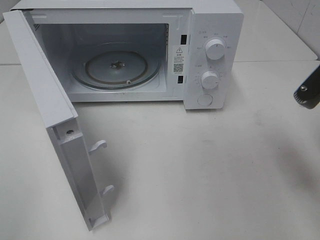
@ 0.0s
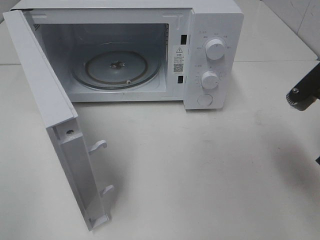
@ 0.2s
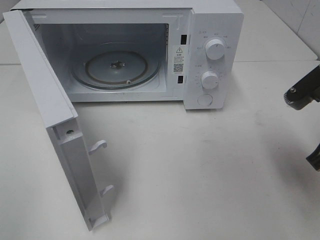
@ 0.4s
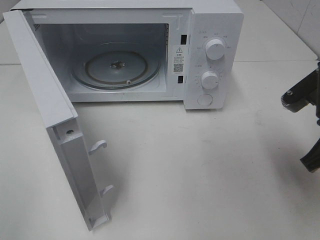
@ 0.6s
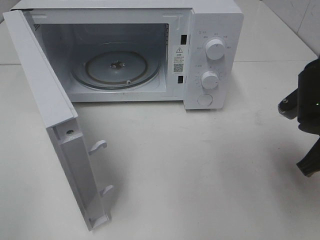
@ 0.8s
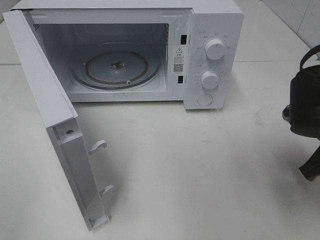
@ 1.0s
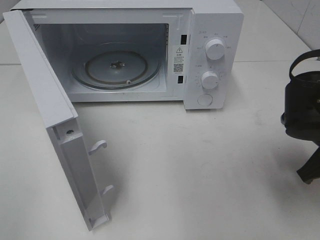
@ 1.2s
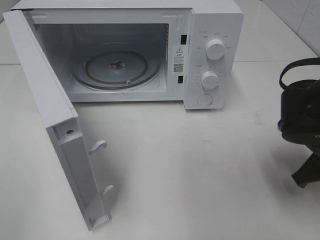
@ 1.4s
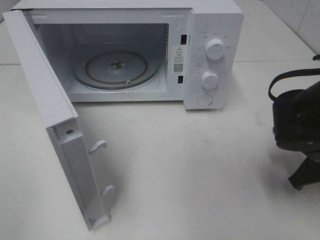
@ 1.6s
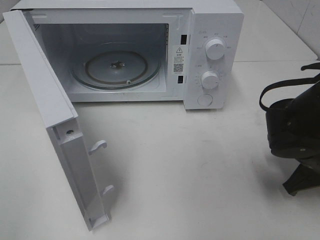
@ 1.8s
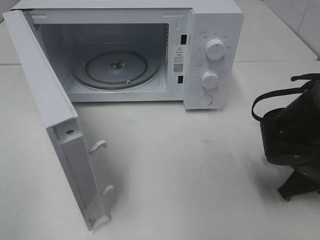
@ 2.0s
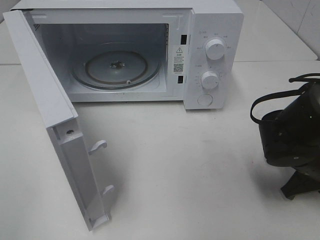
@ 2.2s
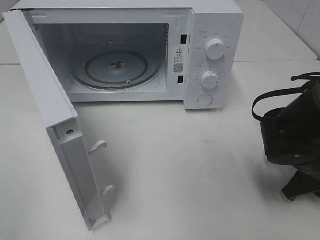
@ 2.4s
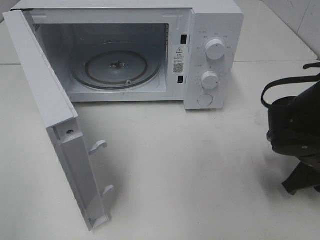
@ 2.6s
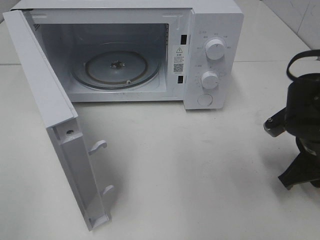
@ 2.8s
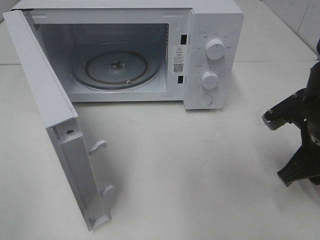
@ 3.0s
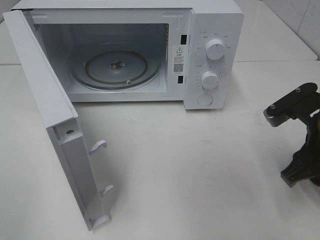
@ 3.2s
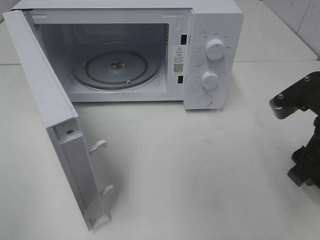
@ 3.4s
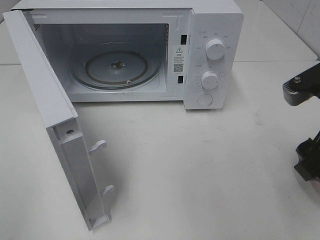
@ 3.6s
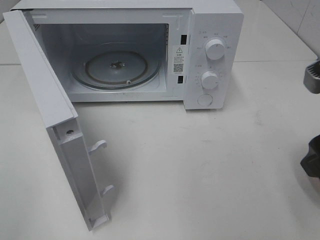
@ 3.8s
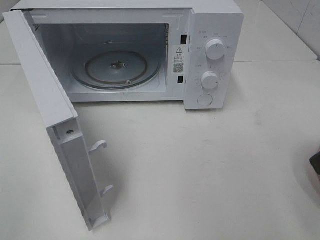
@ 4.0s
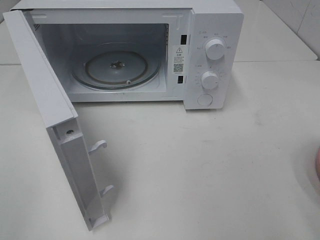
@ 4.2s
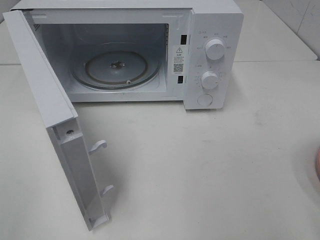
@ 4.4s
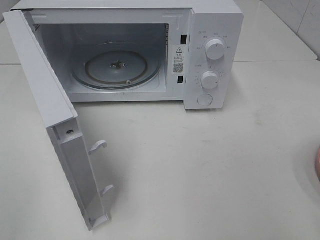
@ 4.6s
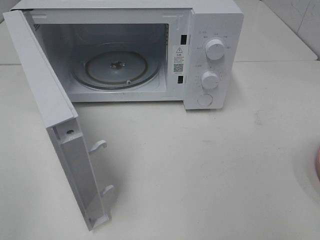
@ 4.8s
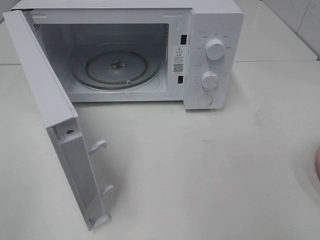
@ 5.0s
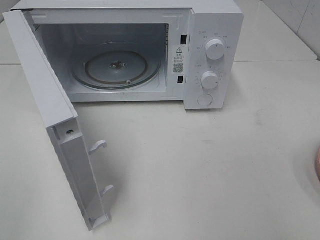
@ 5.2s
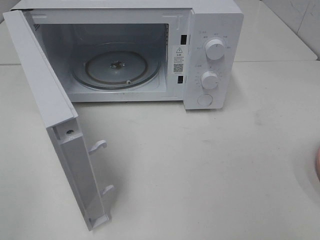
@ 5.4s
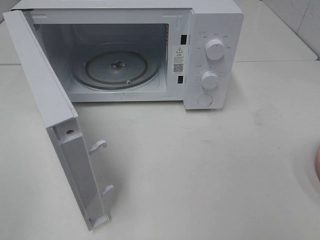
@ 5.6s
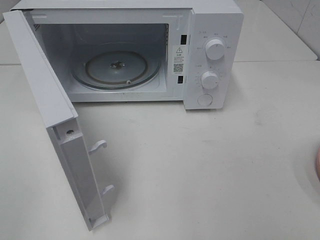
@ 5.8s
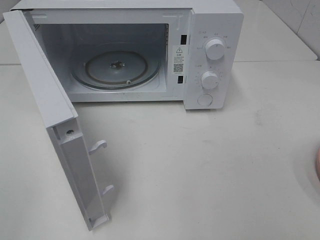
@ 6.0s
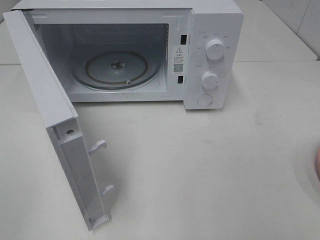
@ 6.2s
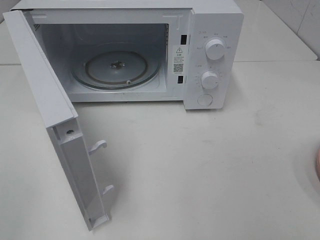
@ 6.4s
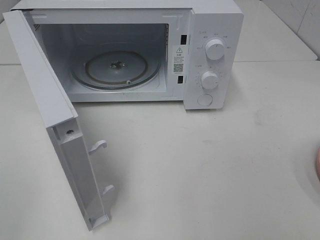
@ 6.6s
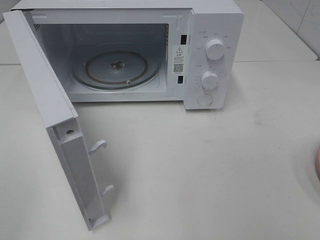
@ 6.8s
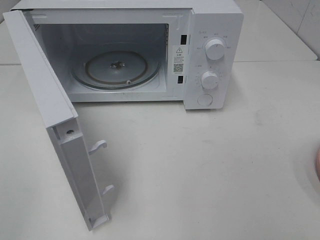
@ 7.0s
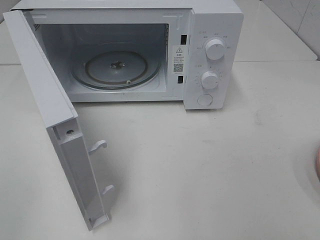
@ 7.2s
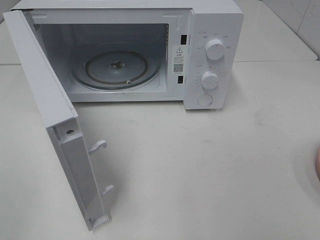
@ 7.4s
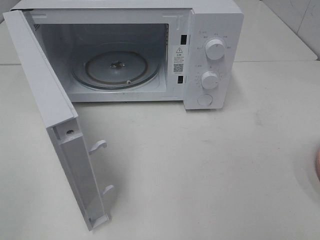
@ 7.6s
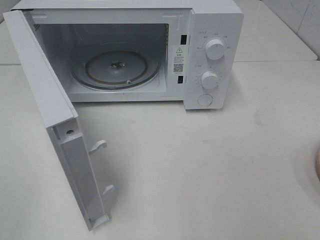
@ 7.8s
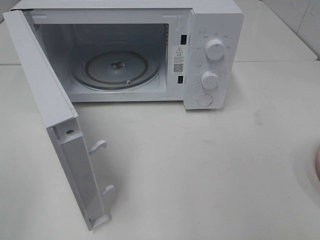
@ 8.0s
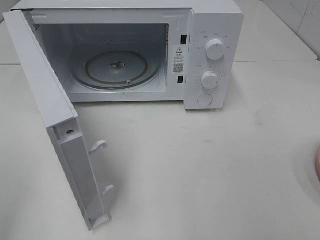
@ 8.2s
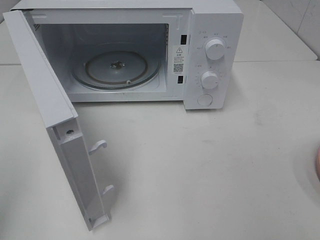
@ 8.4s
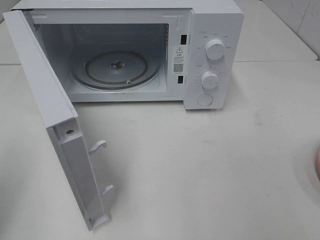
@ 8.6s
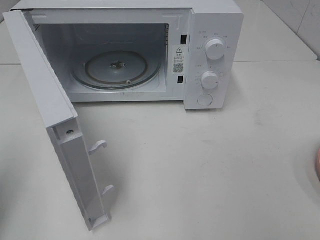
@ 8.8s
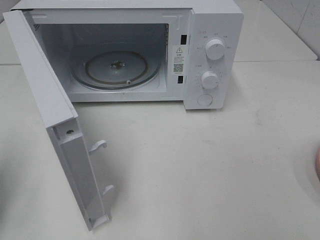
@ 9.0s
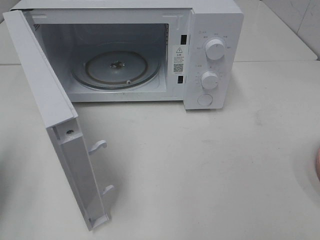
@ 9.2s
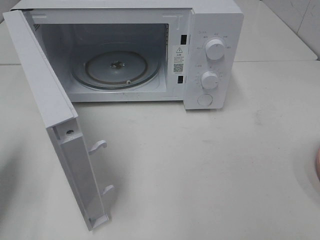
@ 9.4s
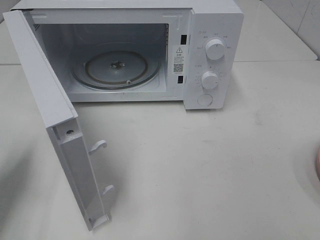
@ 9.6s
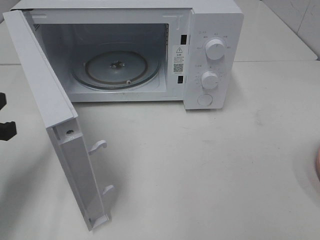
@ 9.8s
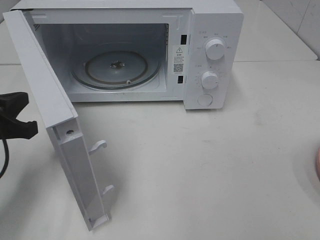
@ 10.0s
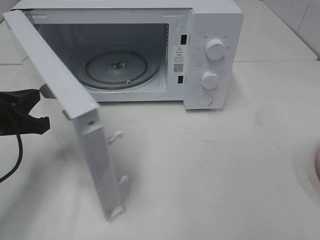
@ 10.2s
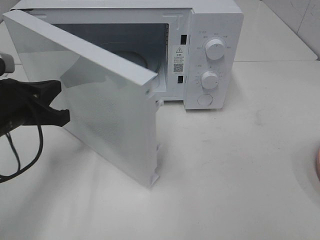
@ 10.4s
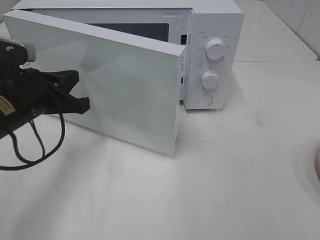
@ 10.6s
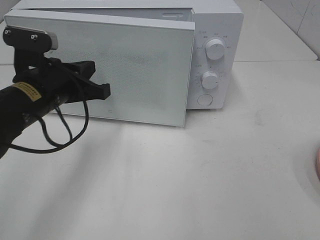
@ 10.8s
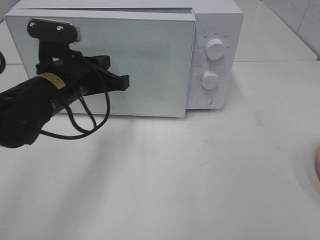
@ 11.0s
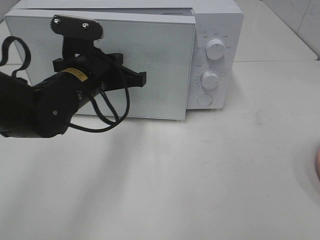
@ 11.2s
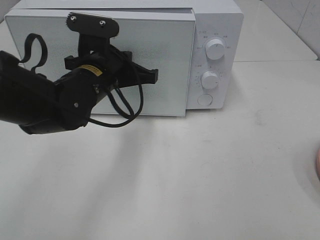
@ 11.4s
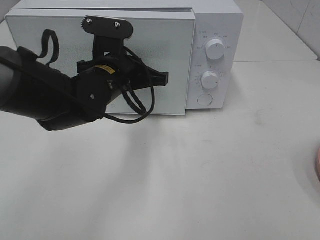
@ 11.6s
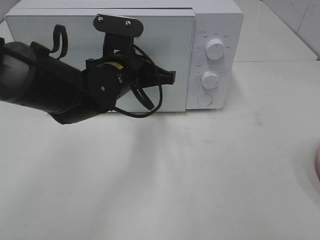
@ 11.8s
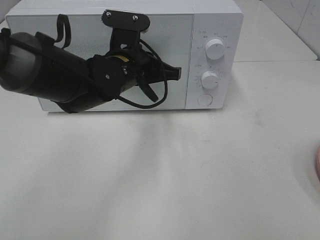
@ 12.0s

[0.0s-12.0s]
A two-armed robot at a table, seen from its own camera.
Task of the whole recording: Heat the burger.
Step, 0.0s to 3.0s: Right hand: place the plate on the table.
0.0s to 1.6s: The right gripper shifts approximately 10 cm downward.
1.6s to 3.0s: The right gripper ends up approximately 5 cm from where it was, and opens up.
3.0s to 4.4s: The right gripper goes about 20 cm upward and backward.
6.0s to 7.6s: Both grippers stay about where they are.
7.6s to 9.0s: The left gripper travels forward by some 15 cm, and closes its fingers.
9.0s to 10.4s: The left gripper travels to the right, forward and downward by roughly 15 cm.
10.4s to 12.0s: The left gripper goes roughly 20 cm to the right and forward.

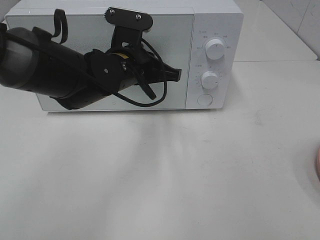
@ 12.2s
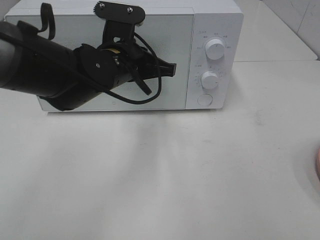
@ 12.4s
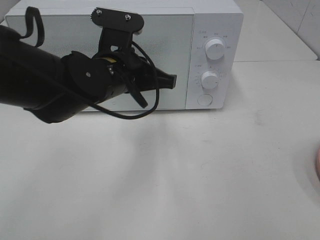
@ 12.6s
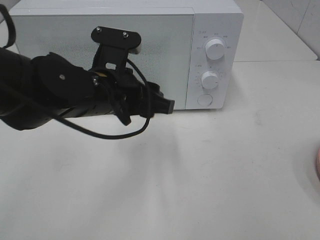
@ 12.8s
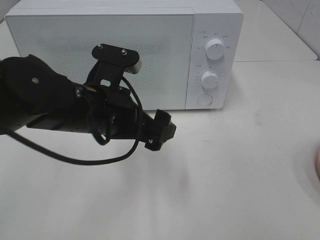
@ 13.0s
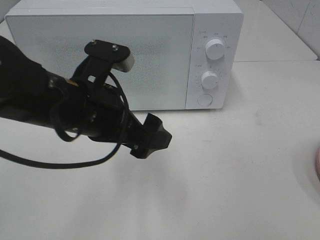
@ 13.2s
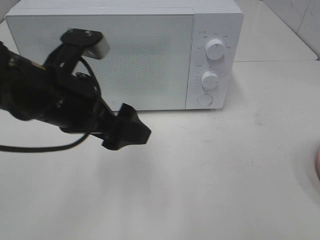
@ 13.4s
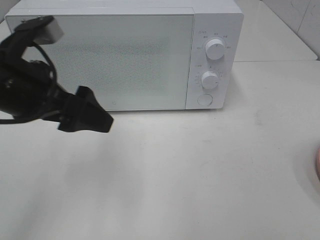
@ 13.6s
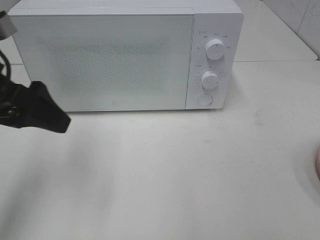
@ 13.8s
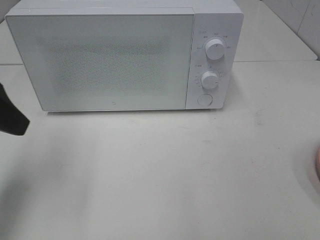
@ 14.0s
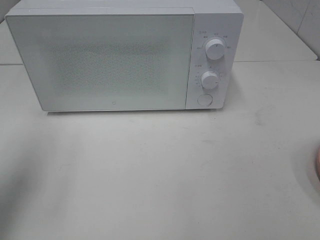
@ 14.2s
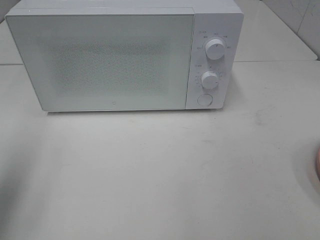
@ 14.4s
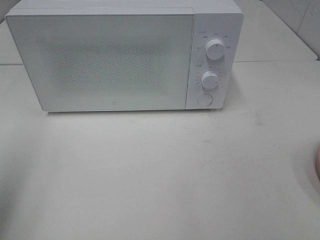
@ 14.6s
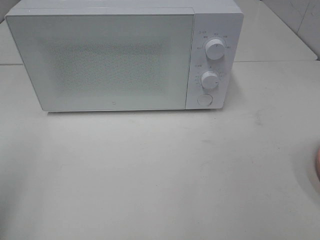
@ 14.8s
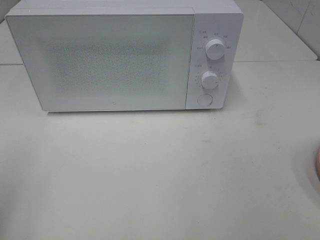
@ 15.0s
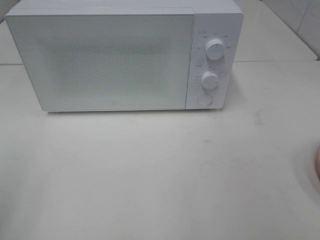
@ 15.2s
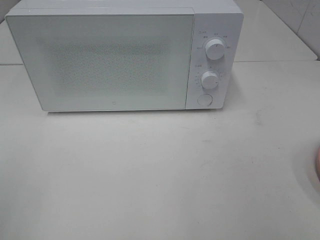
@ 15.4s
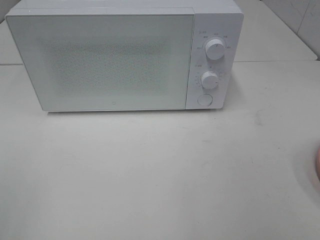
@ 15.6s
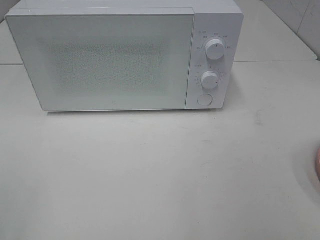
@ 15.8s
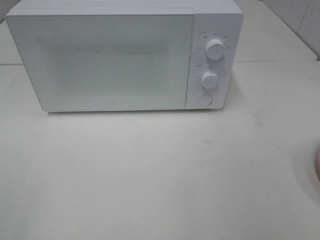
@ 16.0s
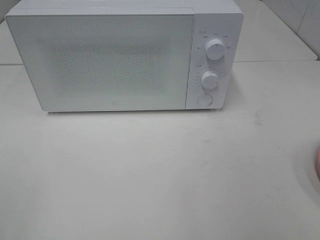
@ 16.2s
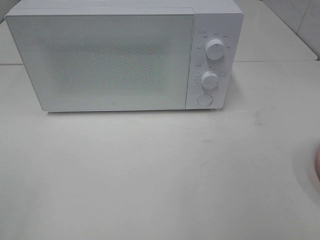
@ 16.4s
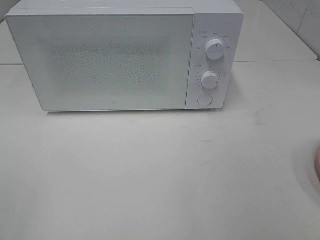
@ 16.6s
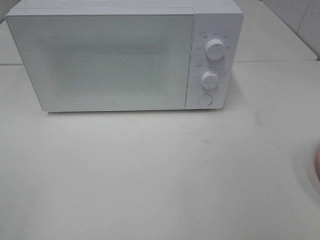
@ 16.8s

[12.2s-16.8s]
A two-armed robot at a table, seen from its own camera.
Task of the whole recording: Heat the burger.
12.2s to 13.8s: The left gripper moves to the left, backward and upward, roughly 25 cm, and opens up.
13.8s to 15.2s: The left gripper is displaced backward and to the left by some 20 cm.

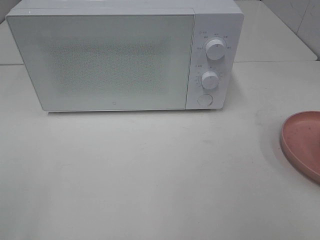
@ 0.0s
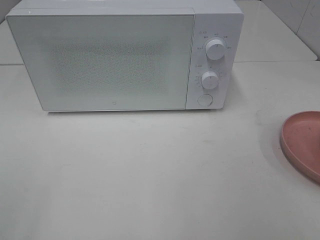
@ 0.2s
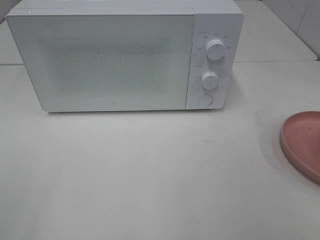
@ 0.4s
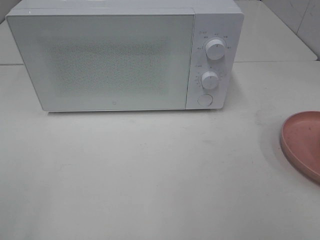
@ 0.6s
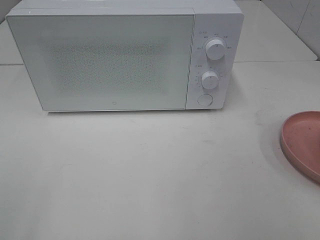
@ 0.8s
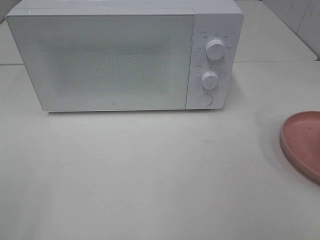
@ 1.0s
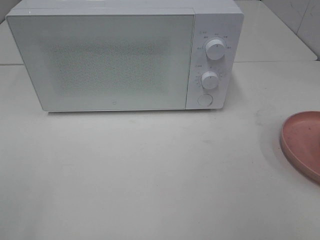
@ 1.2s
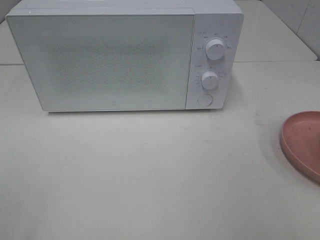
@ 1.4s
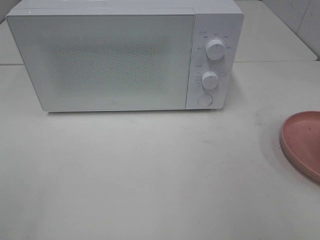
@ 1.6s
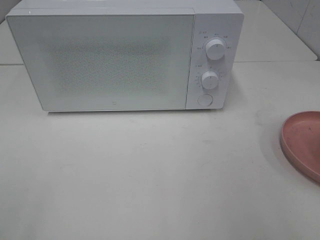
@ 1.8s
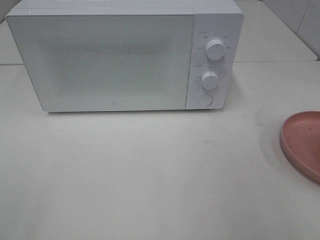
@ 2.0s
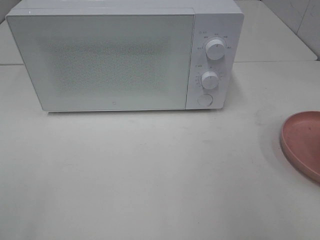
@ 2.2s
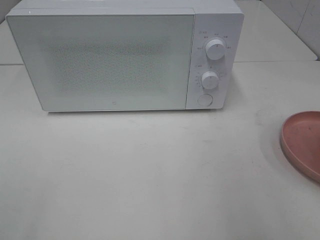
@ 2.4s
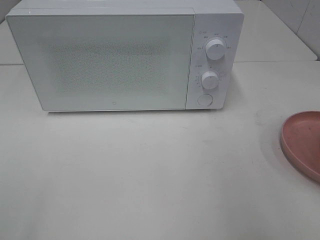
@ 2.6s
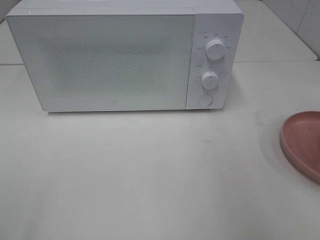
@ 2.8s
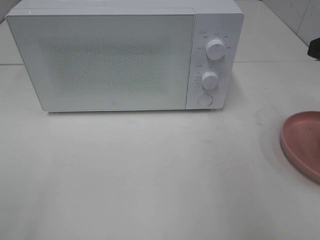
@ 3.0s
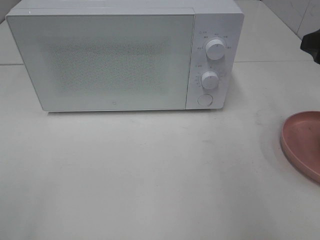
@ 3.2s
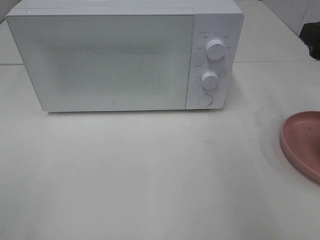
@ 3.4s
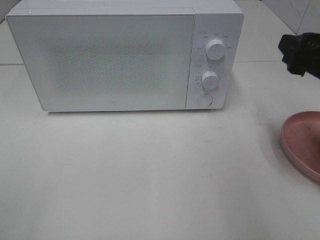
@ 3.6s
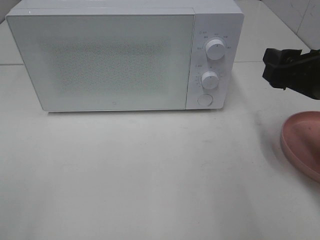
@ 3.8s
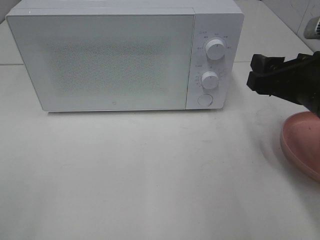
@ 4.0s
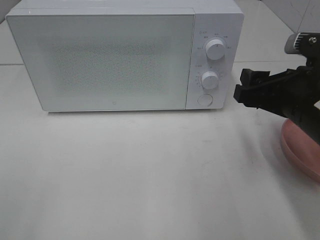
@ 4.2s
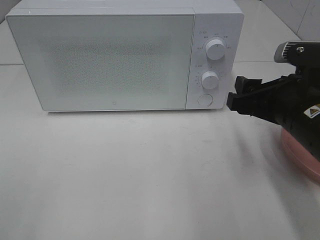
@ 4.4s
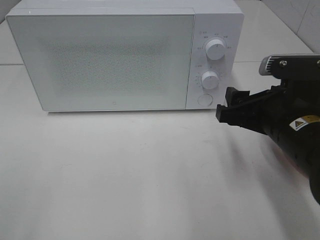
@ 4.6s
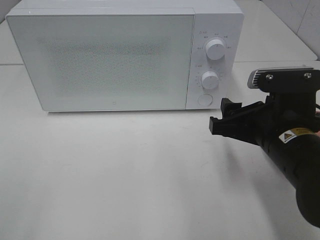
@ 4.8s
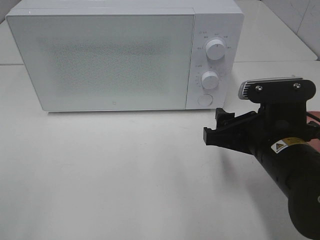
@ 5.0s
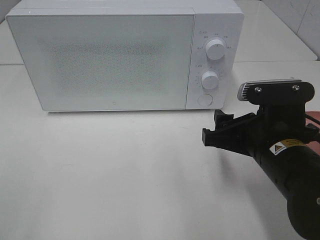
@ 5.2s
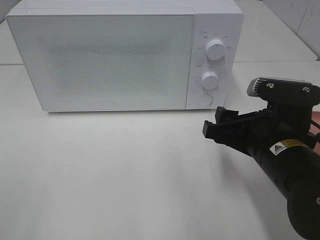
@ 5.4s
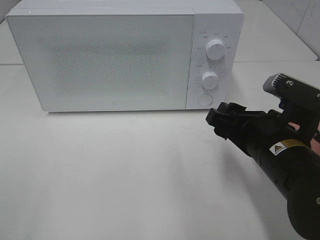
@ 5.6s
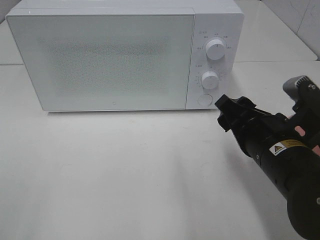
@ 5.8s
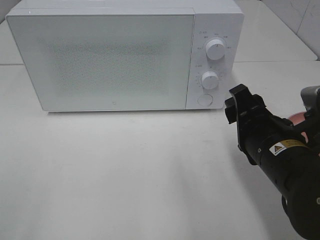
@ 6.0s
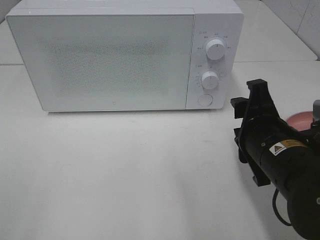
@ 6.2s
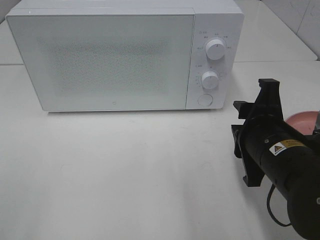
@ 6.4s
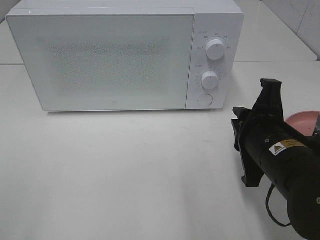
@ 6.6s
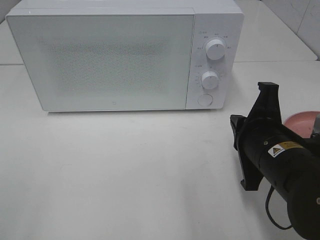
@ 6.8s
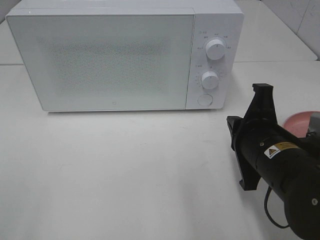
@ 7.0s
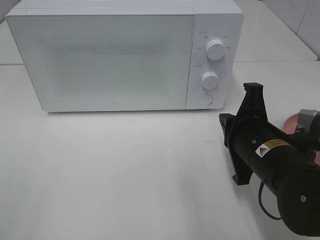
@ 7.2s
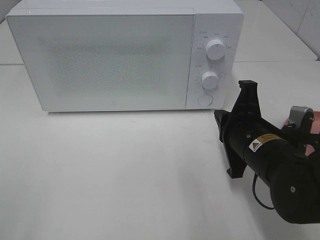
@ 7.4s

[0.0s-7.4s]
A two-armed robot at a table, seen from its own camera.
Task of the whole recording: Heat the burger.
3.0s to 4.4s: The right gripper travels downward and to the left by some 15 cm.
4.4s to 6.0s: The right gripper moves approximately 5 cm.
6.0s to 7.4s: The right gripper closes up.
